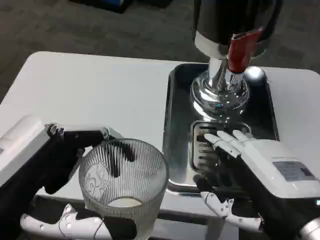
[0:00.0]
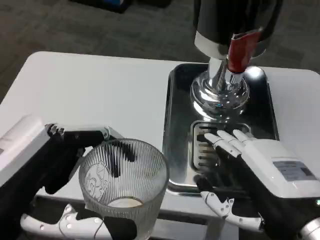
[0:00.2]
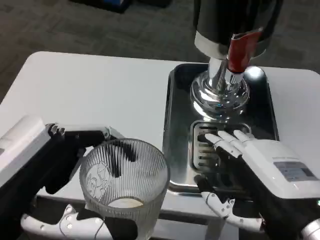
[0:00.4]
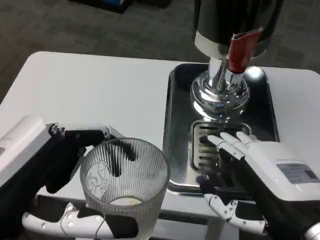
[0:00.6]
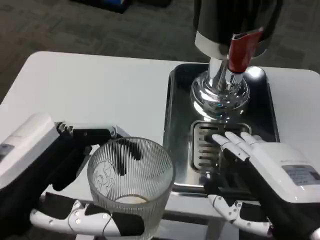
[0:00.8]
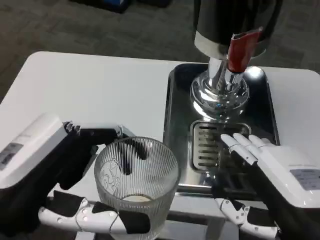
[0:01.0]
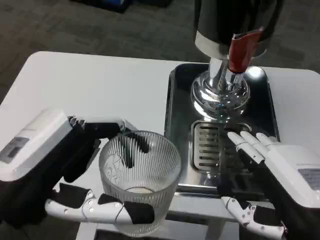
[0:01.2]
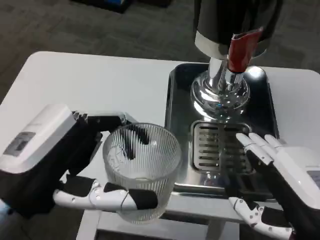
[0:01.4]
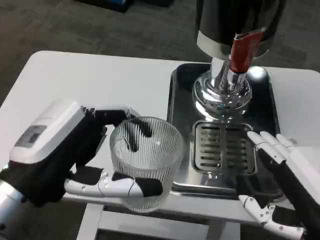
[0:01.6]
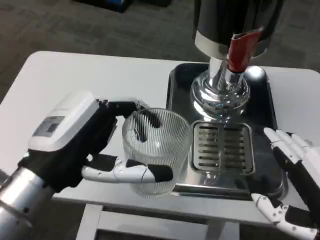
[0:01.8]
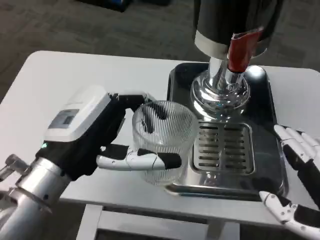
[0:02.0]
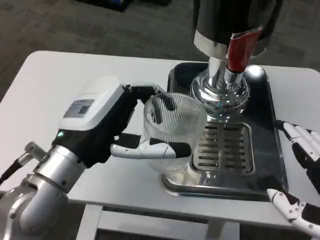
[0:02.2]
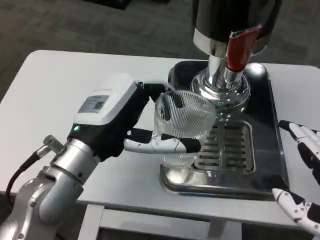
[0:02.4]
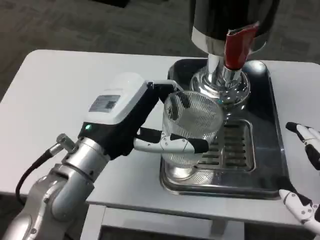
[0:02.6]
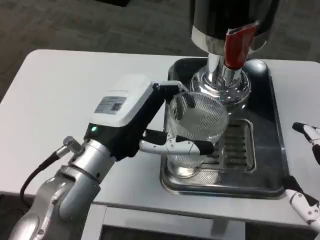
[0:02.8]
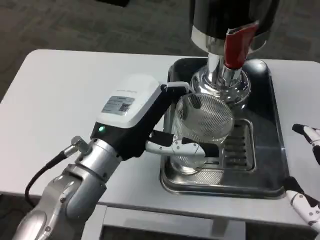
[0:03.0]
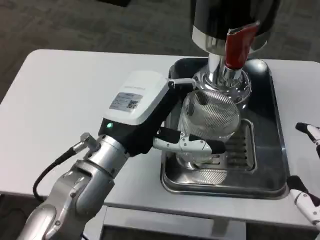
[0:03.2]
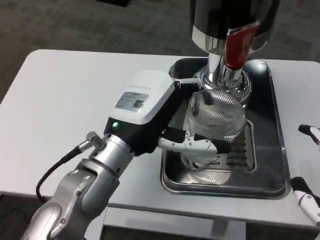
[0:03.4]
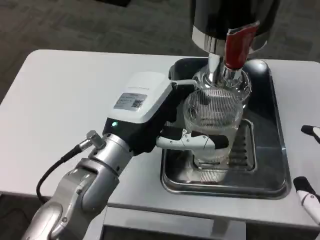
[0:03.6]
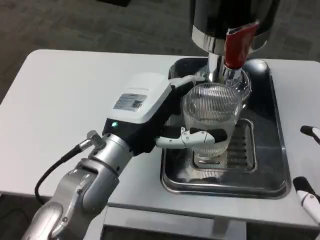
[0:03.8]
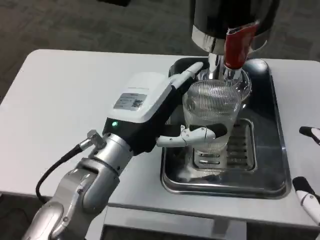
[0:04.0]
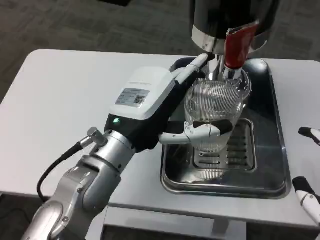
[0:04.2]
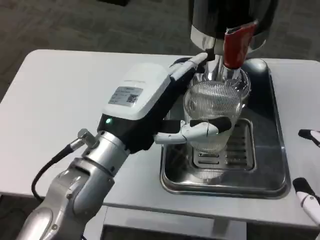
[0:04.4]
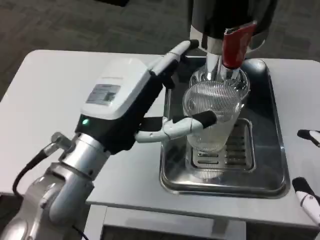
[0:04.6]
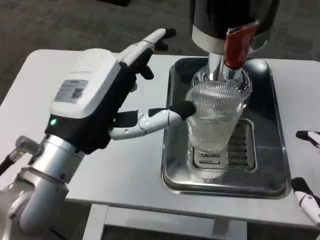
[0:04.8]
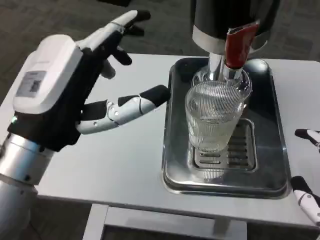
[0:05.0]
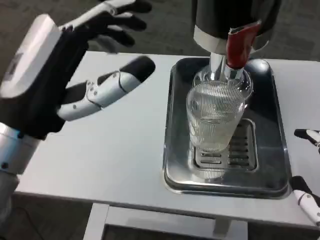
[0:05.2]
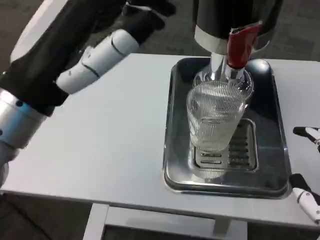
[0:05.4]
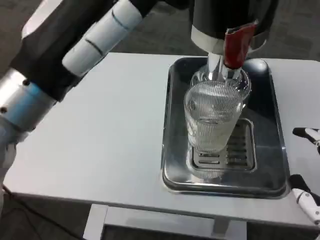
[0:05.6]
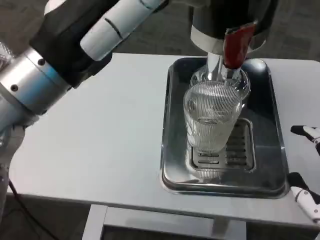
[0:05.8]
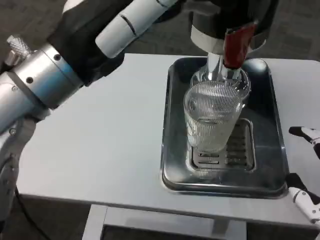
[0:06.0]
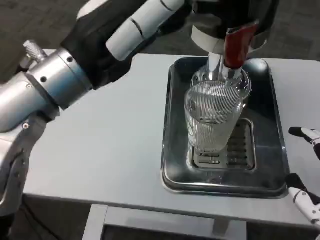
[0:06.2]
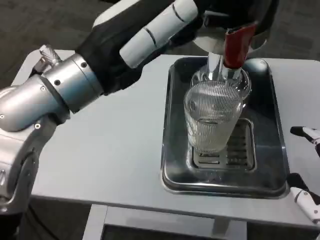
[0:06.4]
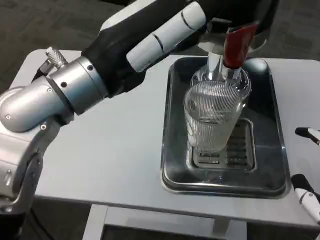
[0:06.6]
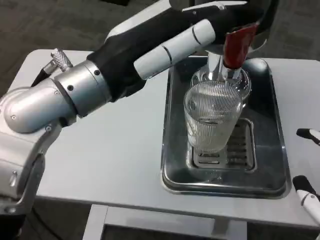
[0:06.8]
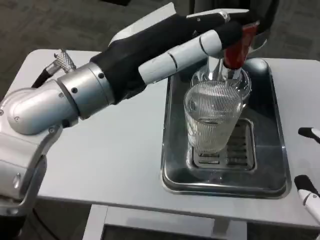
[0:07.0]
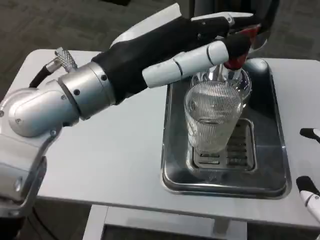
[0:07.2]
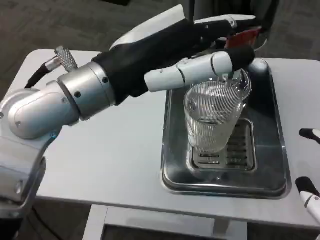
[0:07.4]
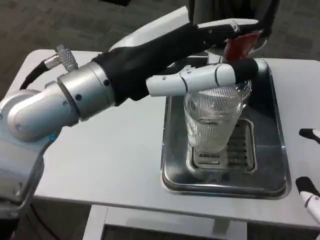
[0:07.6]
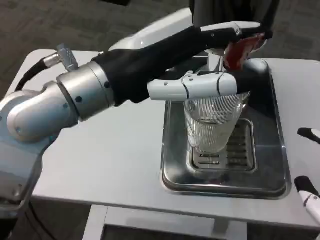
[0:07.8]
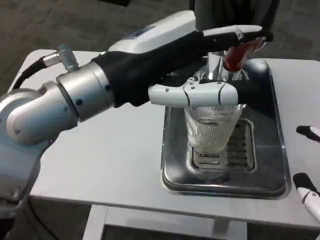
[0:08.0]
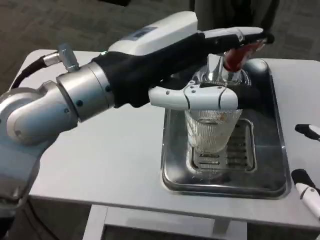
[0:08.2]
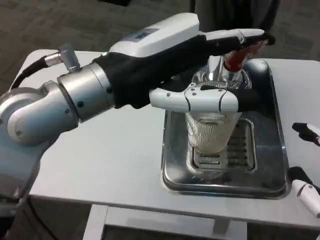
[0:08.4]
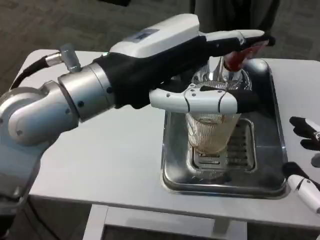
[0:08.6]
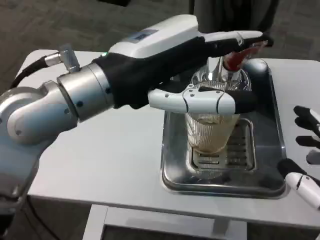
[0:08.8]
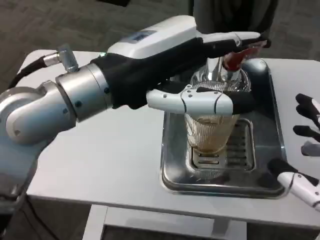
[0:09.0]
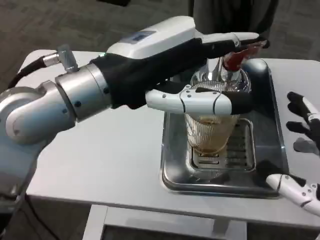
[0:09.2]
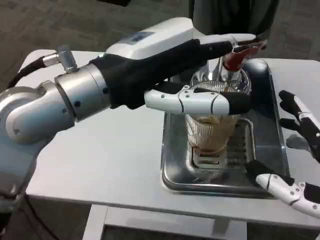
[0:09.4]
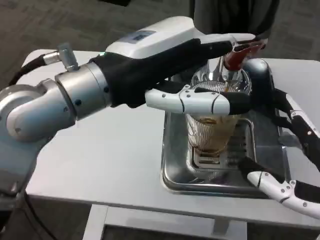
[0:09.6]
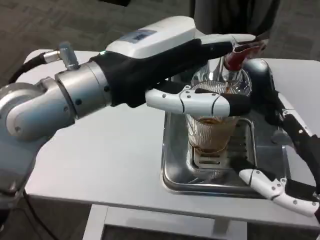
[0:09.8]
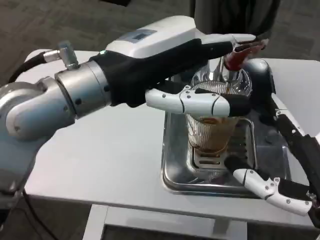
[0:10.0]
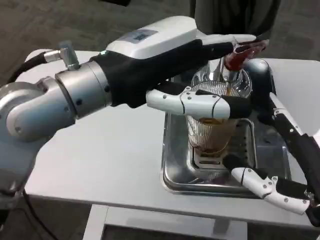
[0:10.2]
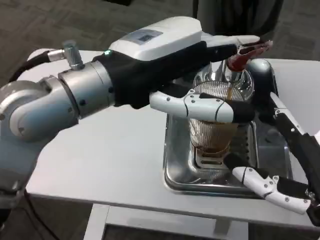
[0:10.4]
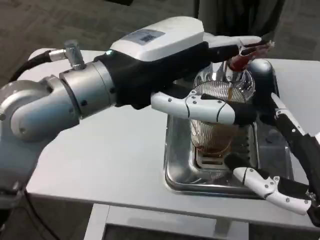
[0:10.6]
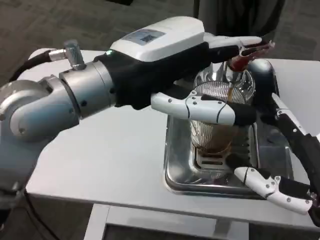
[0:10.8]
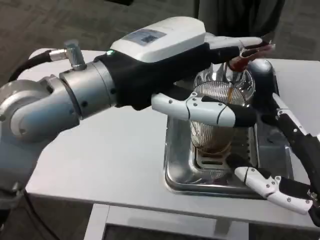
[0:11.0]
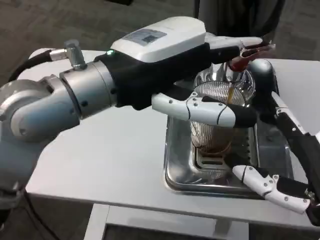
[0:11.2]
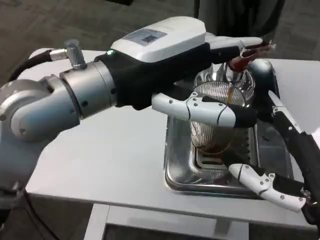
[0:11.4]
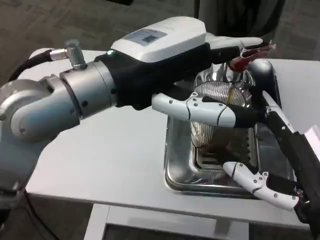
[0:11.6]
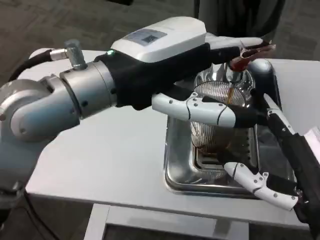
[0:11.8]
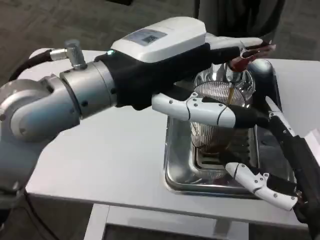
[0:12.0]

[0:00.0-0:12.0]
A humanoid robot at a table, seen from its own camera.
Task of the whole recording: Grasp the cup under the faucet to collect the drink, then remove the cup.
0:00.0 to 0:01.6: The left hand is displaced forward by approximately 5 cm.
0:01.6 to 0:03.0: The left hand travels forward and to the right by approximately 10 cm.
0:03.0 to 0:04.4: The hands move only a little.
0:04.4 to 0:06.0: The left hand is displaced upward by some 10 cm.
0:10.4 to 0:12.0: There are only small adjustments of the hands.

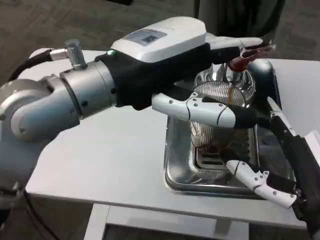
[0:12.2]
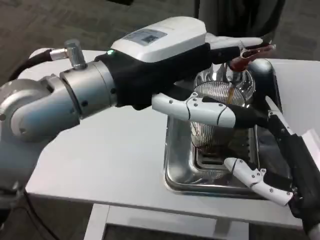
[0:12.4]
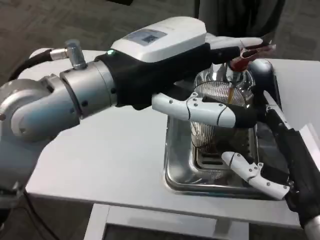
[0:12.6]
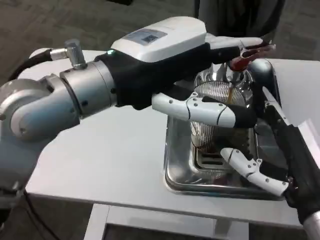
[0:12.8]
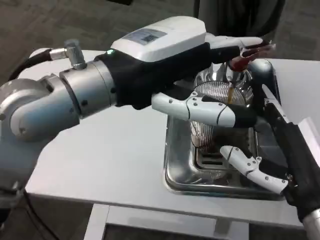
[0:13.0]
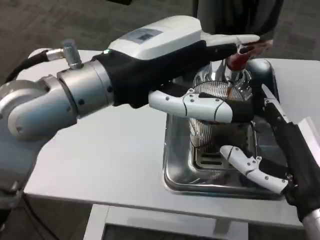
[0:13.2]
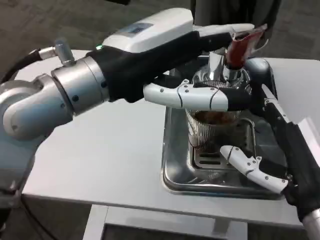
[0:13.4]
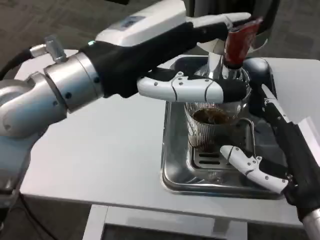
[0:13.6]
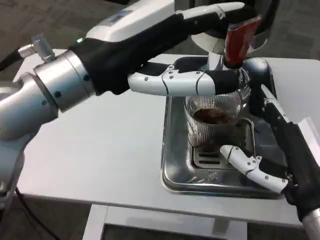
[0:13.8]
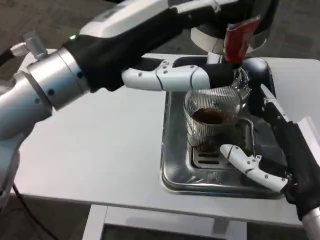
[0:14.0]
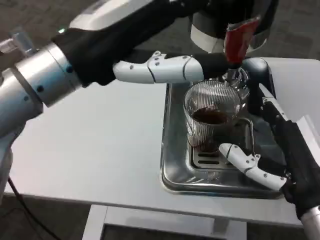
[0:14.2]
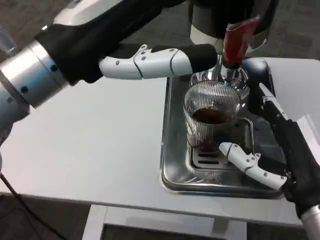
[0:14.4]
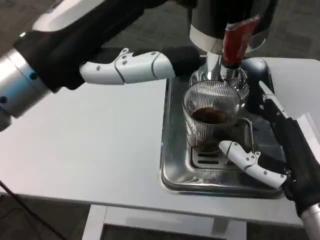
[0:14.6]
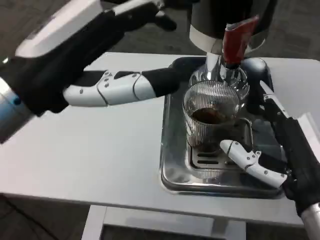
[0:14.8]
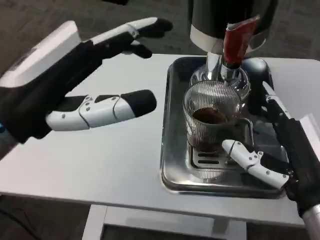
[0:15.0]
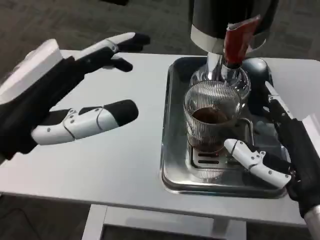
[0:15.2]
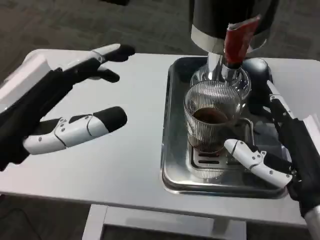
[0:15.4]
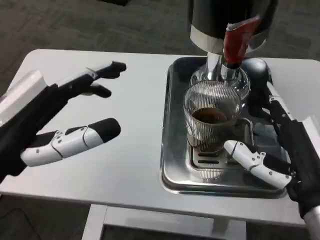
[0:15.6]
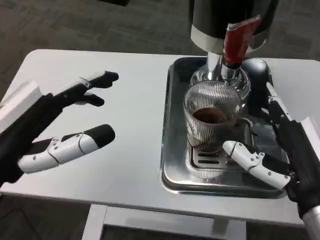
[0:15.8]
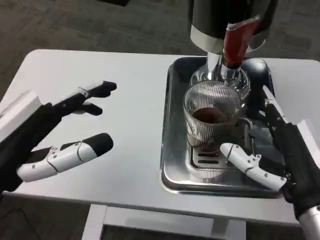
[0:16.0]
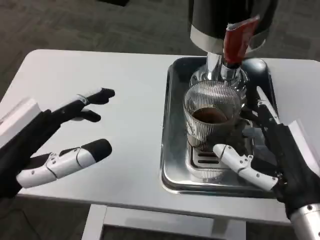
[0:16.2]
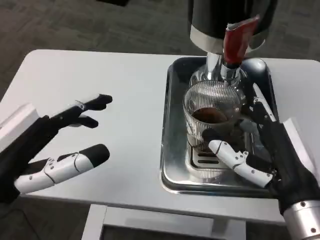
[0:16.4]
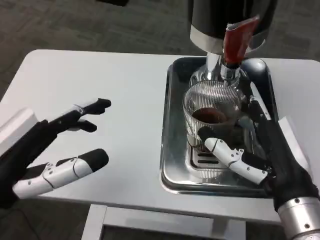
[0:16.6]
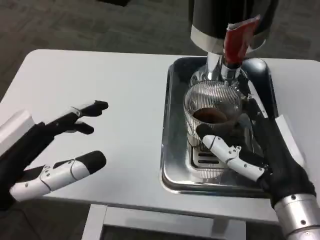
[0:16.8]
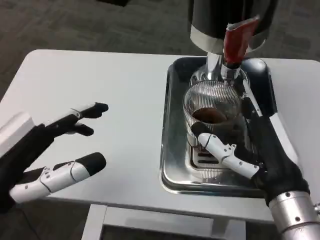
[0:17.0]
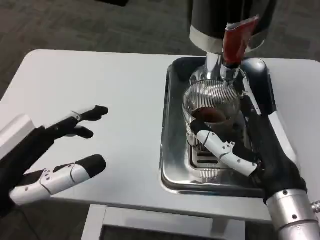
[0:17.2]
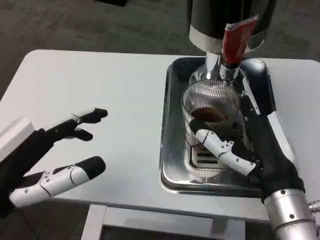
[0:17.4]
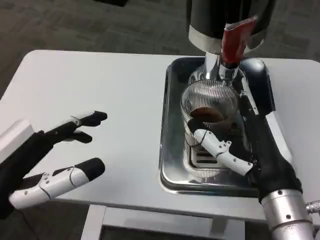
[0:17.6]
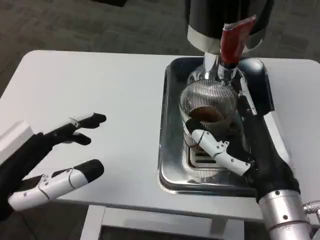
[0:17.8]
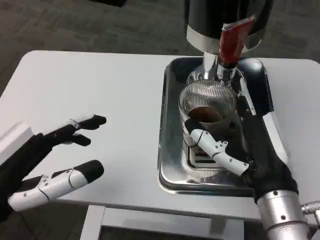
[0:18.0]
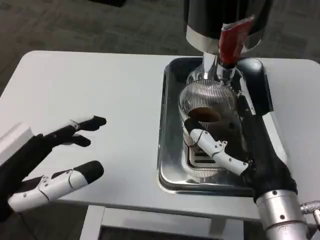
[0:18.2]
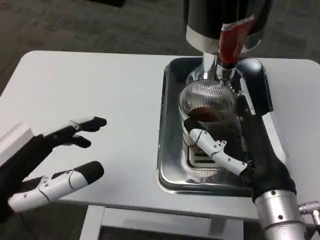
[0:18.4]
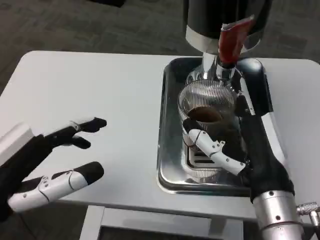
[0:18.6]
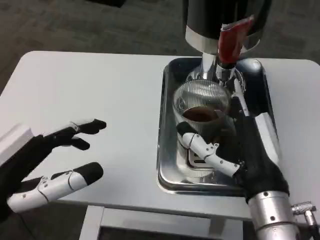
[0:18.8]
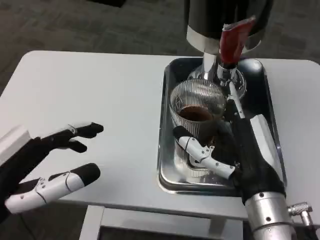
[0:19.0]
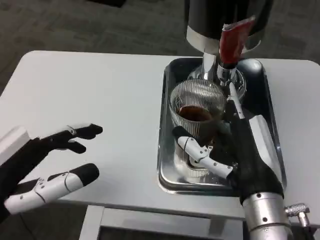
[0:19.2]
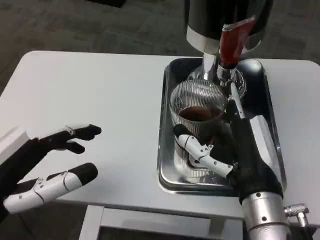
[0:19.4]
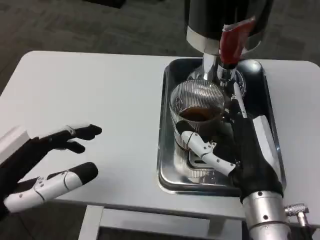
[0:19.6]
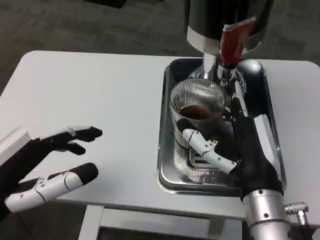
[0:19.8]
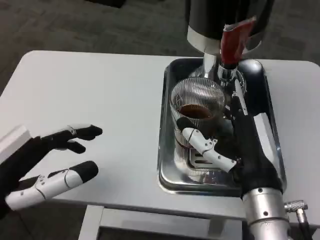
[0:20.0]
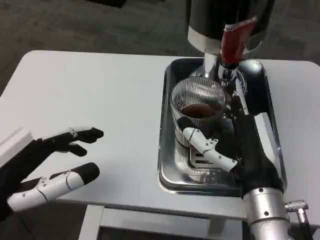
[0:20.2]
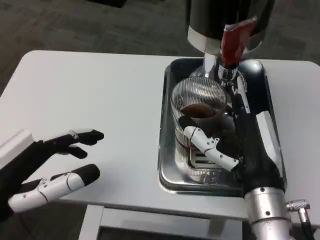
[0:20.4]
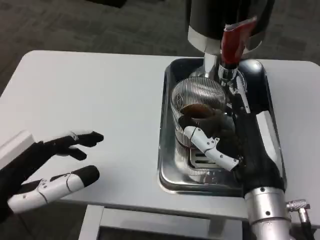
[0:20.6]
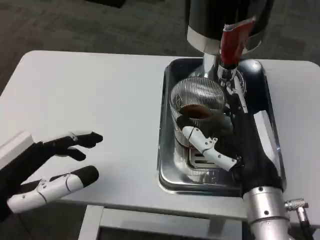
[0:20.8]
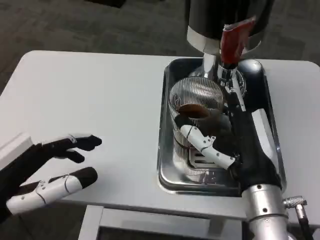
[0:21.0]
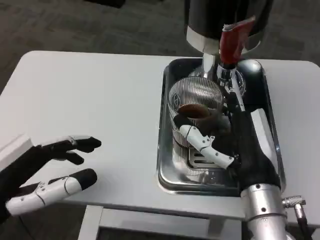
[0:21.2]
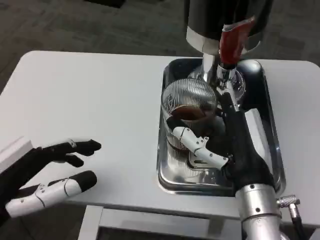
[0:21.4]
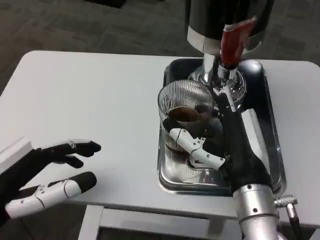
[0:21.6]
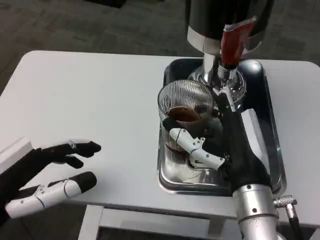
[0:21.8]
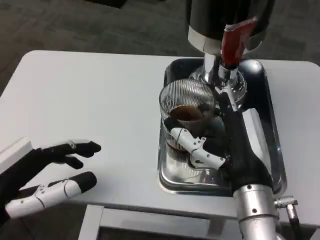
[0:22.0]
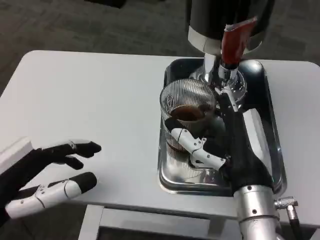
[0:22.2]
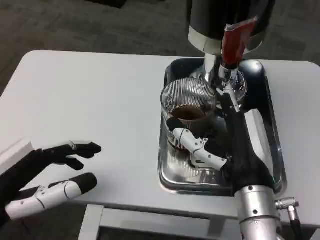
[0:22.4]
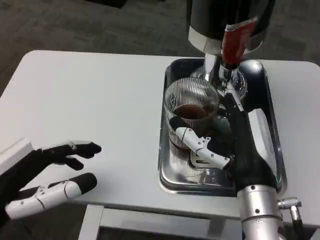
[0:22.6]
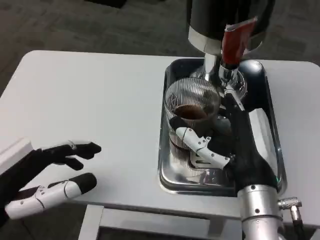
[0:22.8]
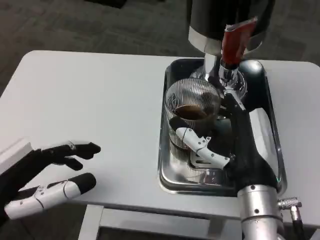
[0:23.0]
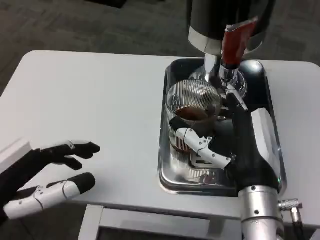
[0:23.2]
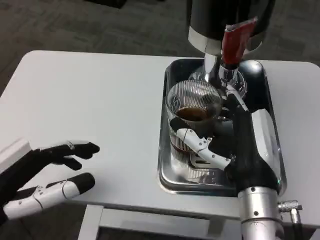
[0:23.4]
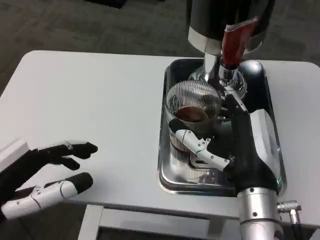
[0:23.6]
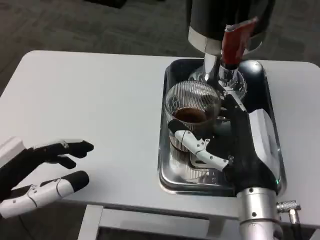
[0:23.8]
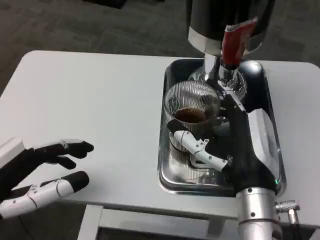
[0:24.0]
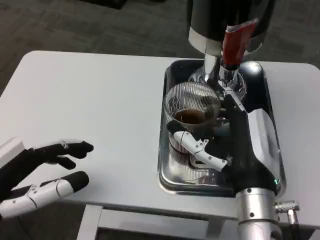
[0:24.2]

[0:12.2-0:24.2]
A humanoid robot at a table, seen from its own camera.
Task of the whole recording: Grasp the cup under the faucet to collect the drink, then remove the cup.
0:13.8 to 0:15.2: The left hand goes roughly 10 cm to the left, backward and downward.
0:15.2 to 0:16.6: The left hand goes some 5 cm downward.
0:18.2 to 0:19.8: The hands move only a little.
0:19.8 to 0:21.2: Both hands stay put.
0:21.2 to 0:22.6: Neither hand changes place.
0:22.6 to 0:24.2: The hands move only a little.
